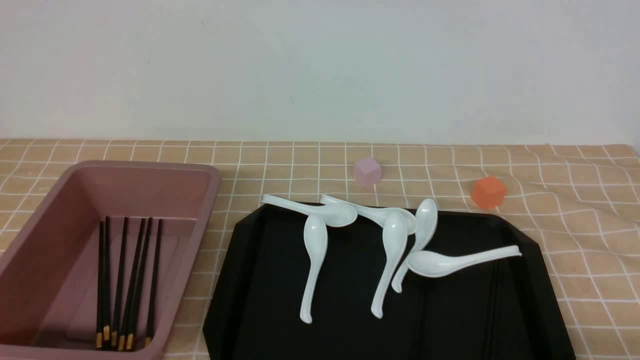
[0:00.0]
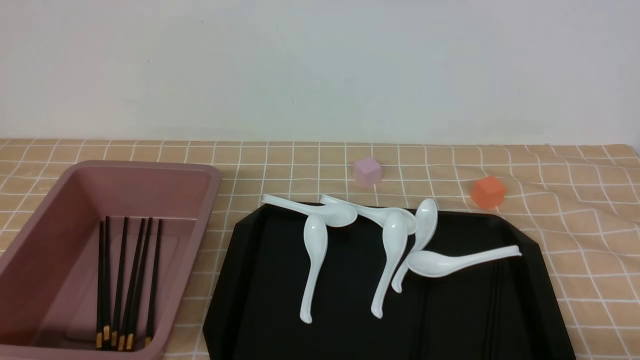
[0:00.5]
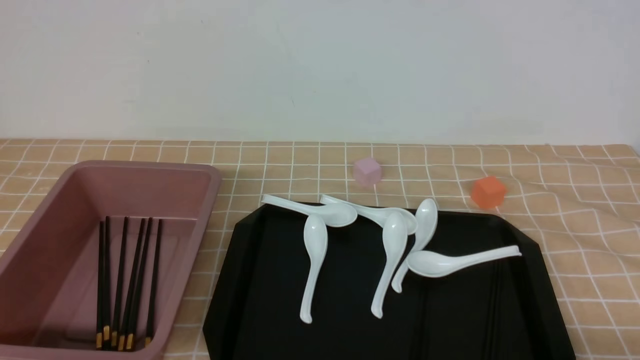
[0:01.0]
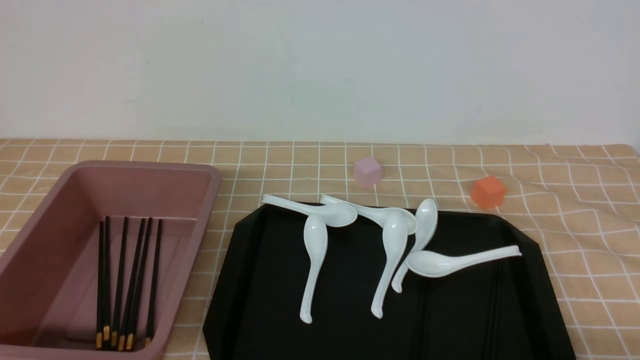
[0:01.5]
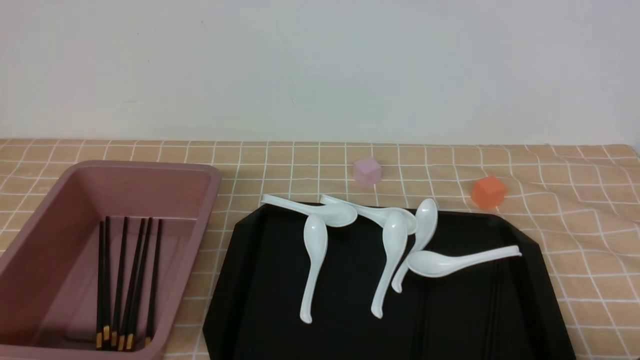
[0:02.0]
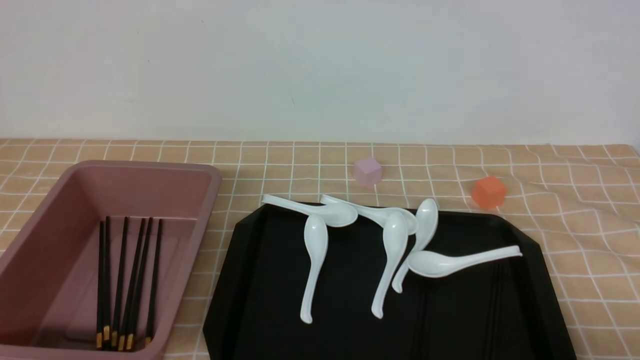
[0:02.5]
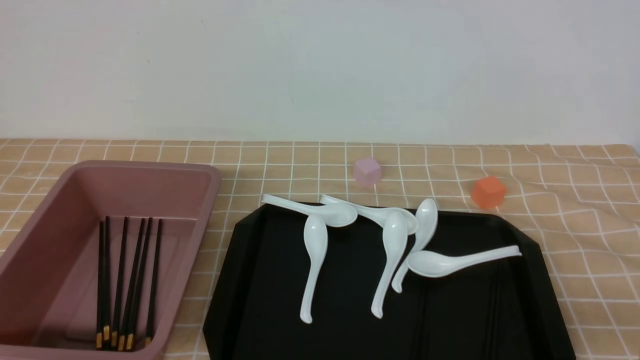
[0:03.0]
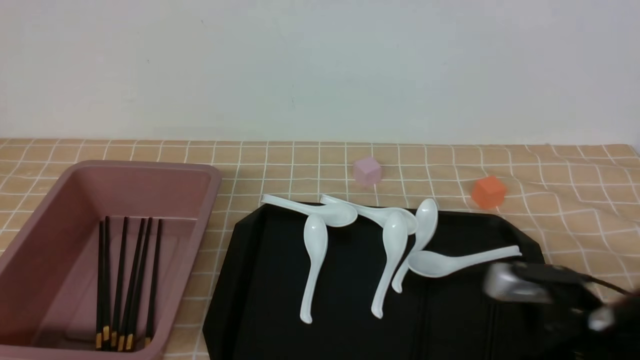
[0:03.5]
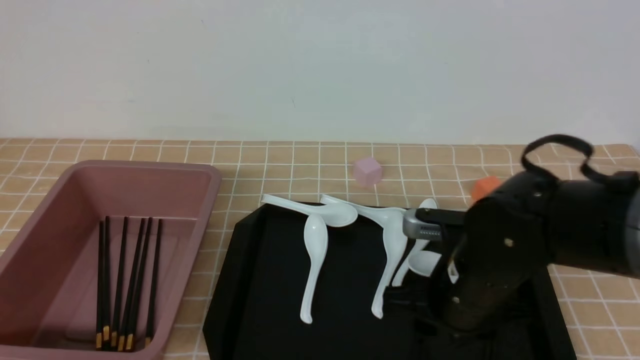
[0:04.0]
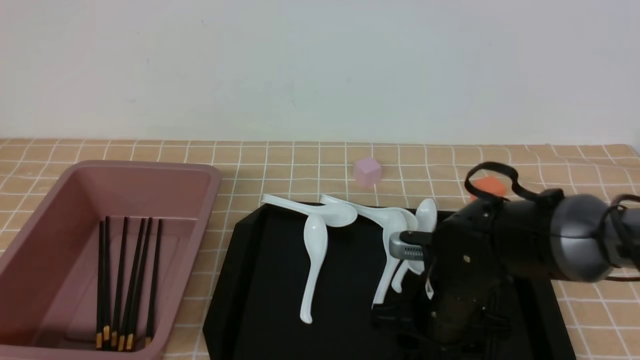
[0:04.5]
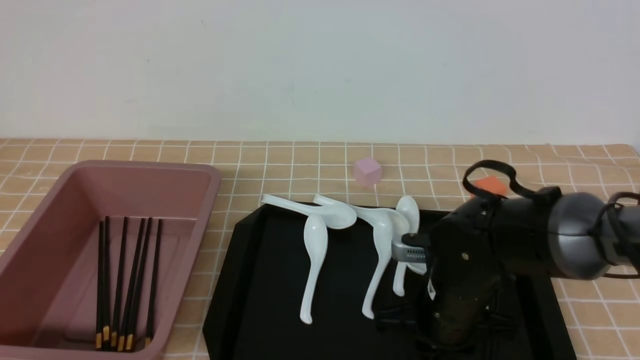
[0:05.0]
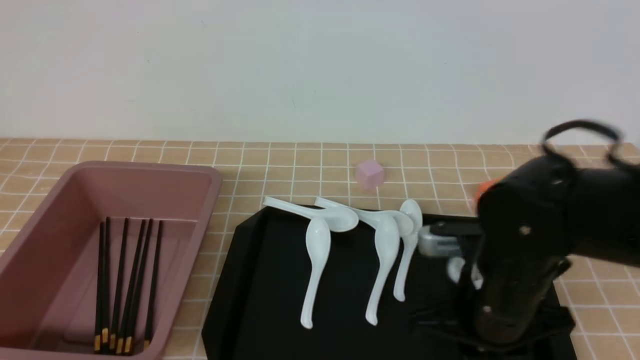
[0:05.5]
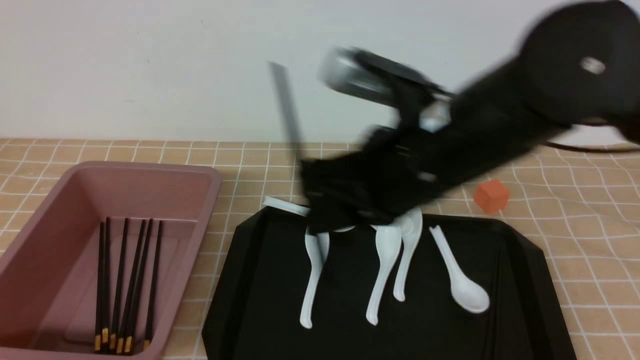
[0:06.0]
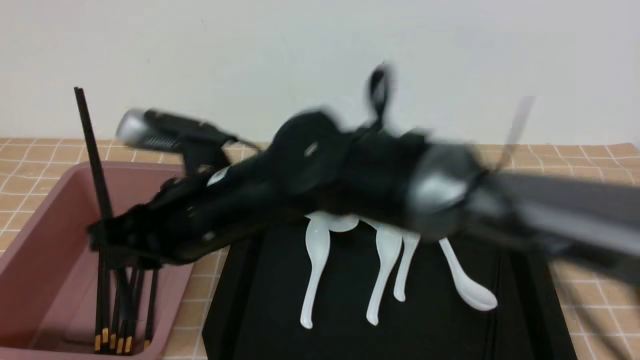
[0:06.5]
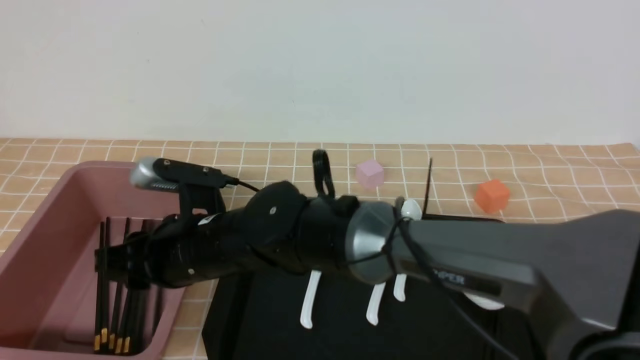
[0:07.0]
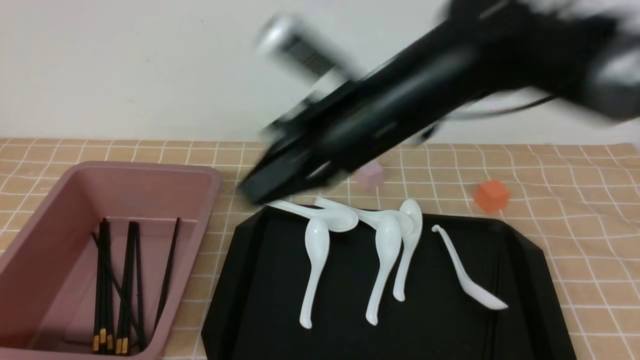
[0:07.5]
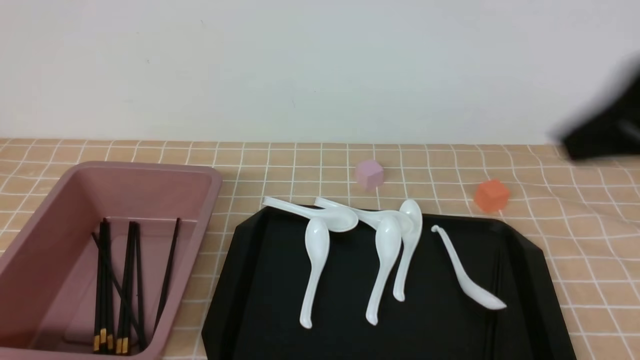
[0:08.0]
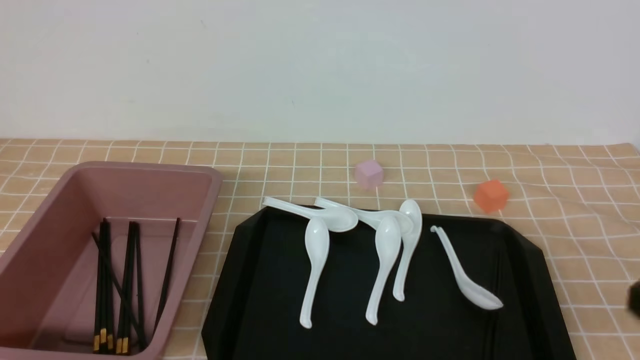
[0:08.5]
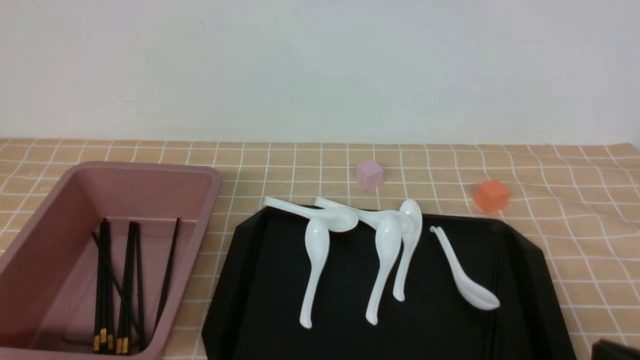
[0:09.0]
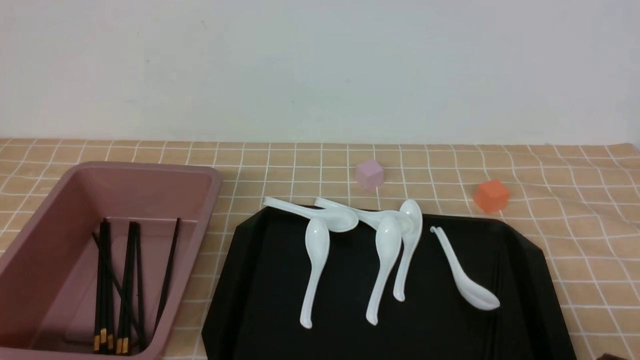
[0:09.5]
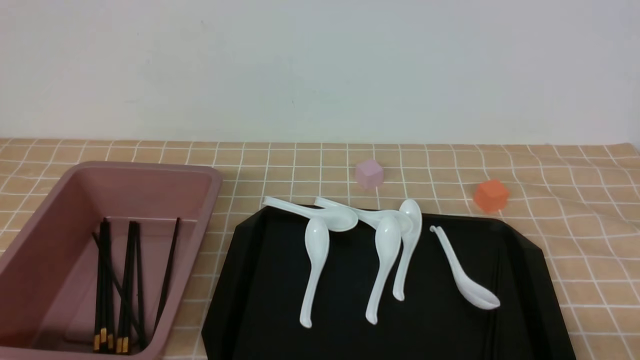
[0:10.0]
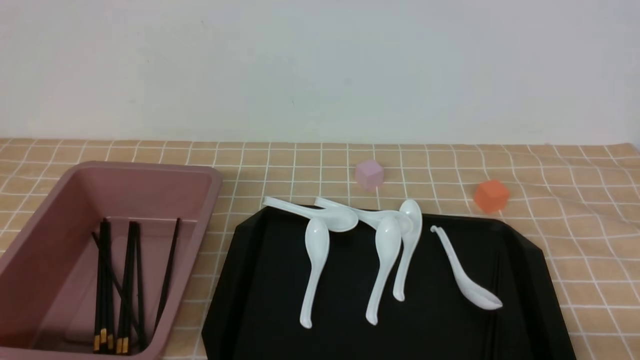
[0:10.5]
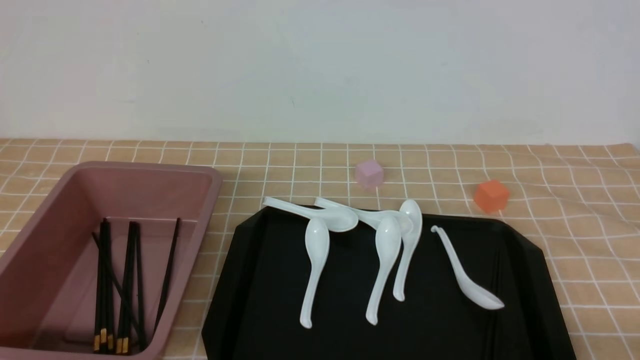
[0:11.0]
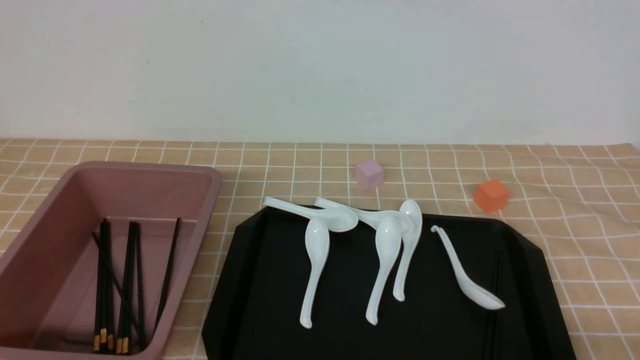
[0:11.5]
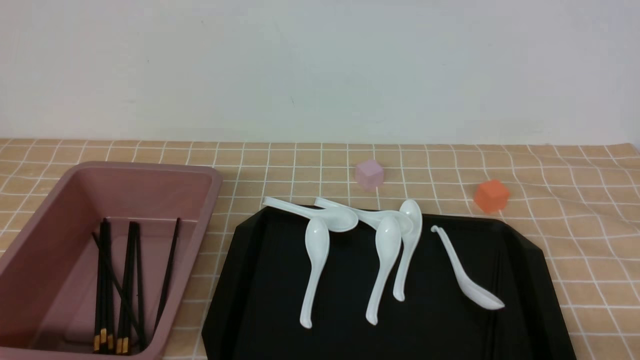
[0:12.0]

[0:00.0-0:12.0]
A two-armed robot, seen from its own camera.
Step, 0:00.0 to 0:05.5: use the right arm to grab a pair of chopsticks.
Step, 0:06.0 to 0:07.0: use the right arm to put the chopsticks into the lunch box.
0:02.0 to 0:04.0: The right gripper shifts approximately 25 cm forward and to the left, and closes, then opens again.
0:04.0 to 0:06.0: The right gripper is displaced upward by about 10 cm, and closes its fingers.
0:06.0 to 0:08.0: The right gripper is displaced upward, to the right and backward by roughly 15 cm.
0:08.0 to 0:10.0: The right gripper goes about 30 cm downward, backward and to the right.

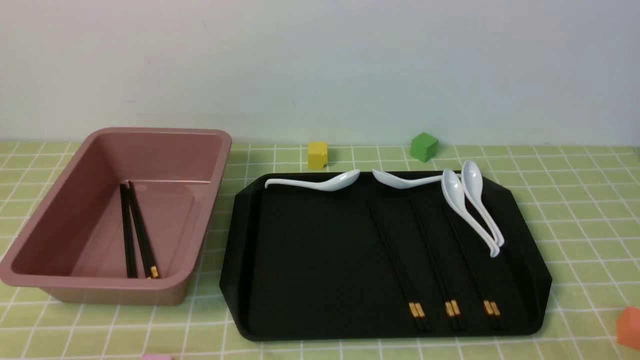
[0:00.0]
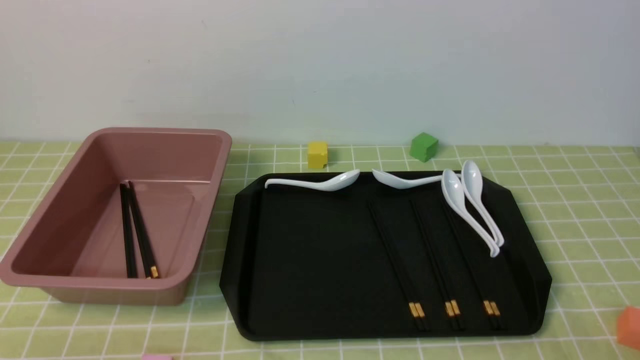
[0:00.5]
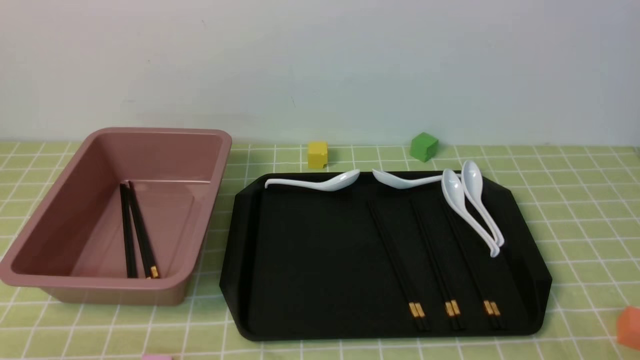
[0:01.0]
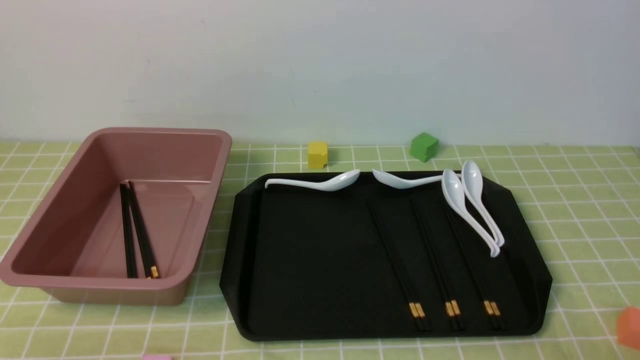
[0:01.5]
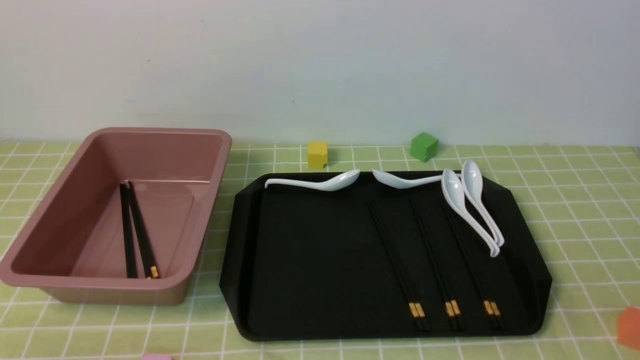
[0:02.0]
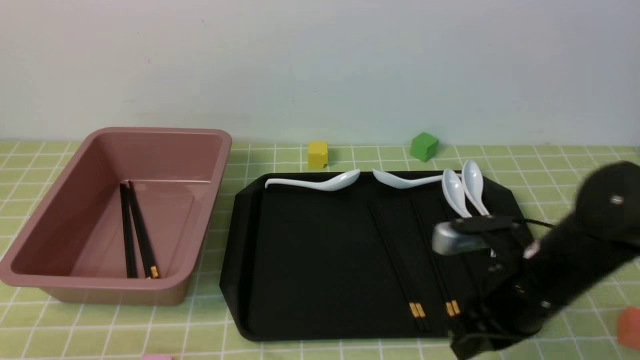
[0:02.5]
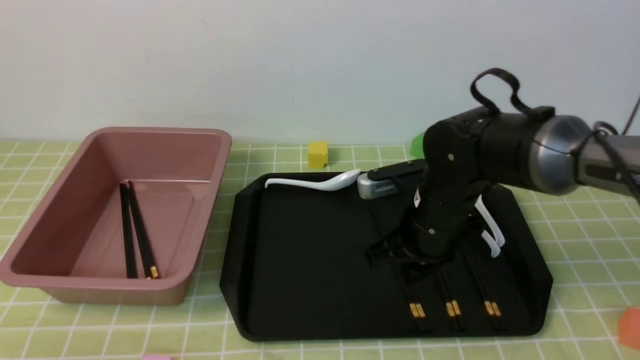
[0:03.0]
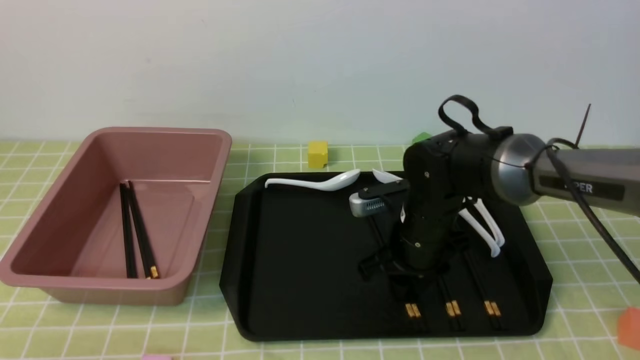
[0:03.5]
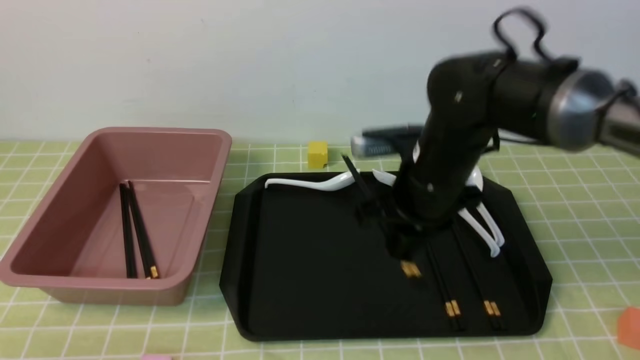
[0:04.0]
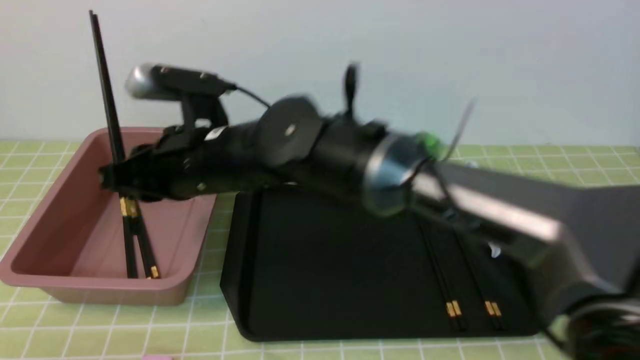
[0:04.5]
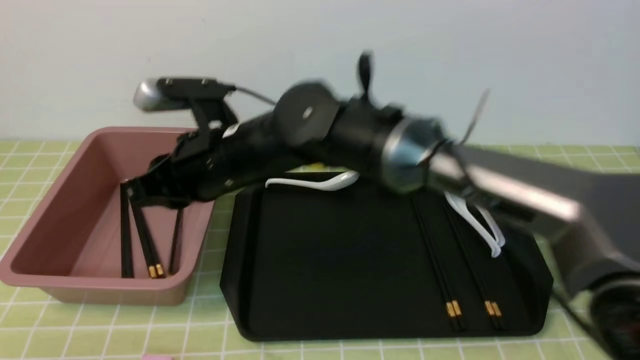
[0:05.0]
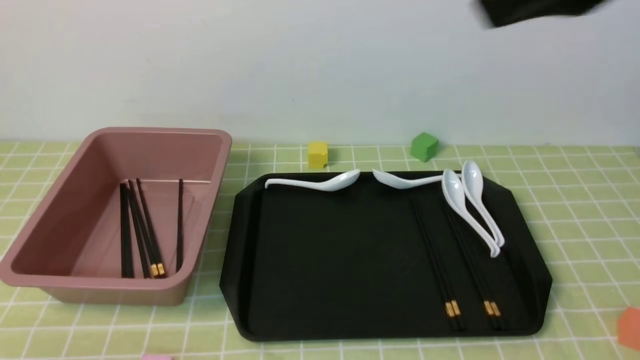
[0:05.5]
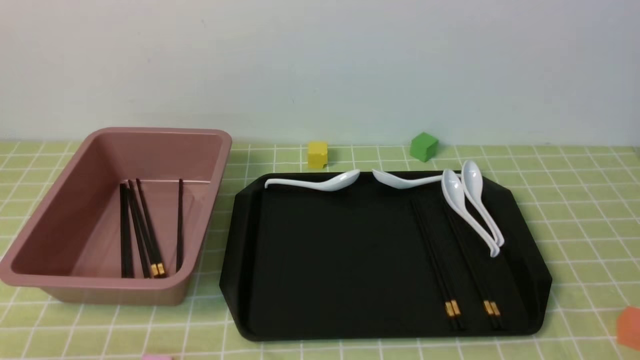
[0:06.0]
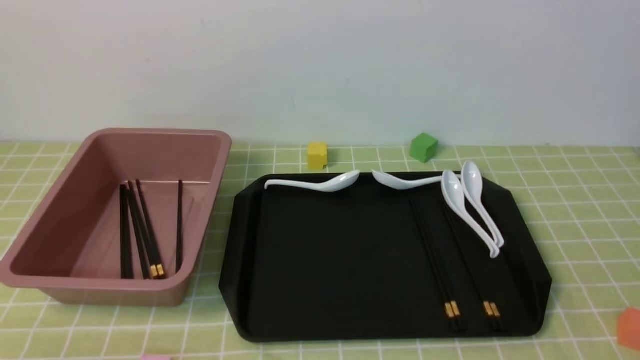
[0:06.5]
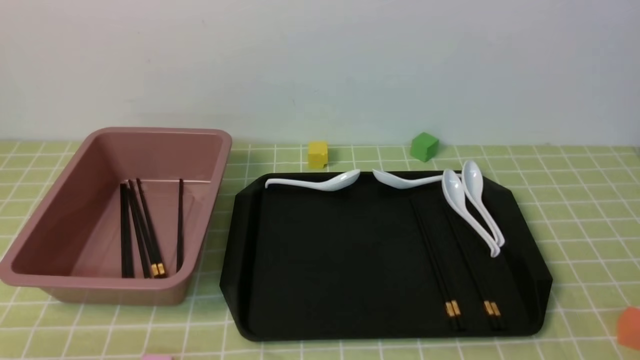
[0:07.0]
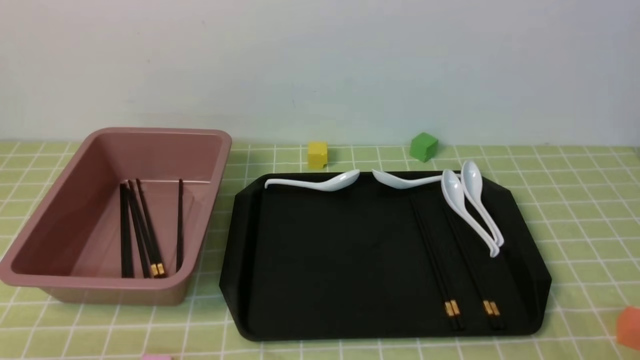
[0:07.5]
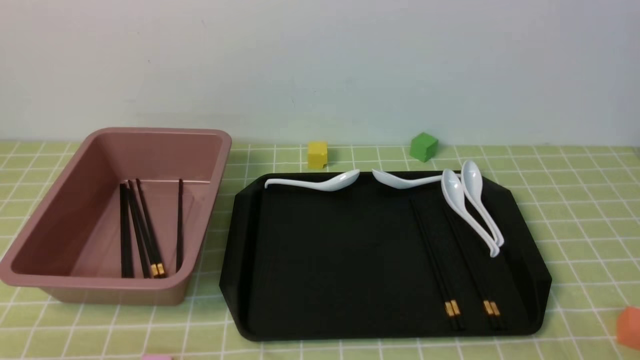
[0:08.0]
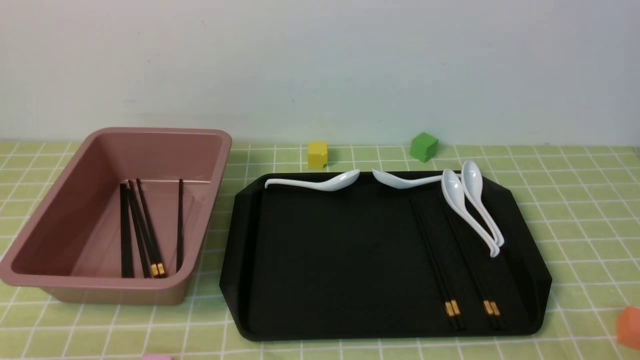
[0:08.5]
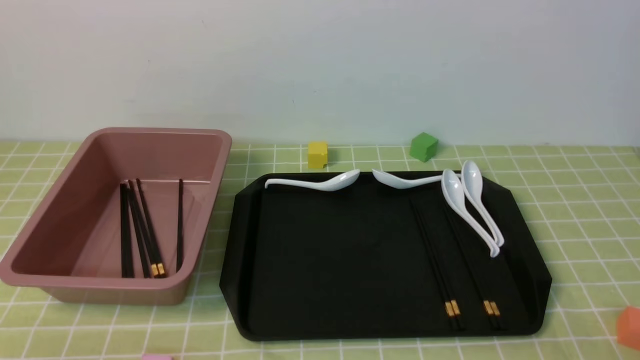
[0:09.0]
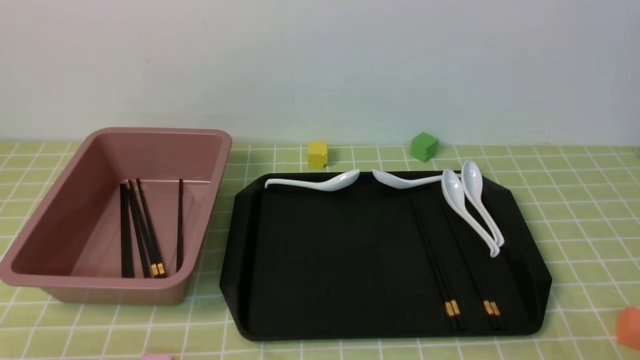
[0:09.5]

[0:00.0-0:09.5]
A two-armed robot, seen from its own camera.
Step, 0:00.0 to 0:03.5: use the right arm to grab a pair of chopsticks.
Step, 0:04.0 to 0:05.0: use the right arm to put the chopsticks into the lunch box.
0:02.0 to 0:04.0: The right gripper goes roughly 30 cm forward and to the left, and opens.
0:04.0 to 0:05.5: The right gripper shifts about 30 cm upward and backward, reaches some 15 cm to the left, then returns, and closes up.
0:05.5 to 0:07.5: The right gripper is displaced downward, backward and to the right by some 35 cm.
